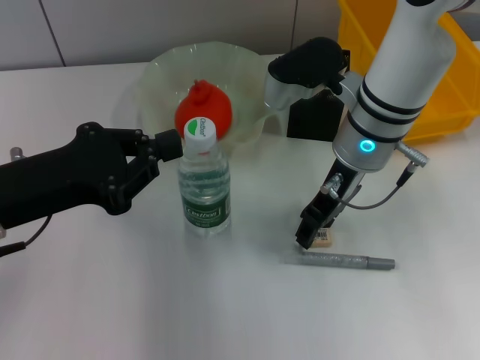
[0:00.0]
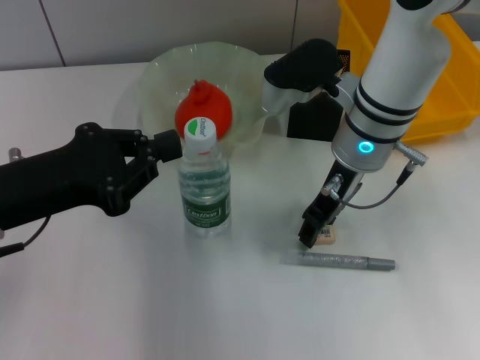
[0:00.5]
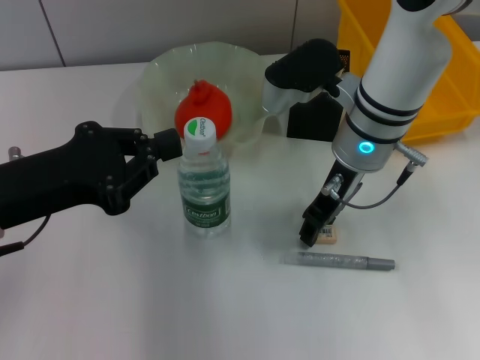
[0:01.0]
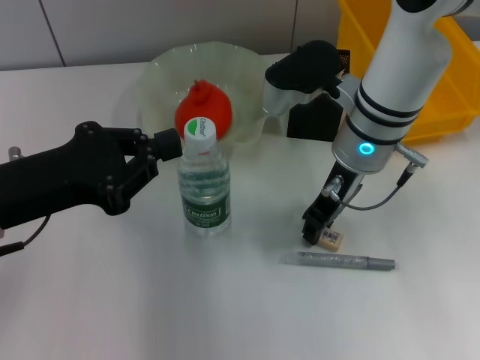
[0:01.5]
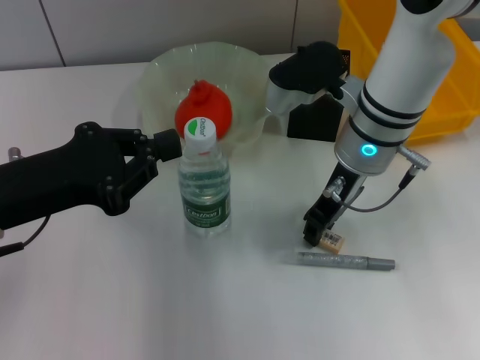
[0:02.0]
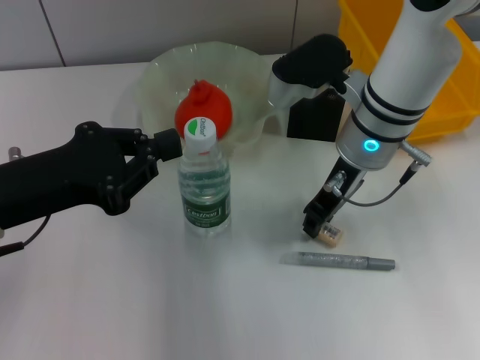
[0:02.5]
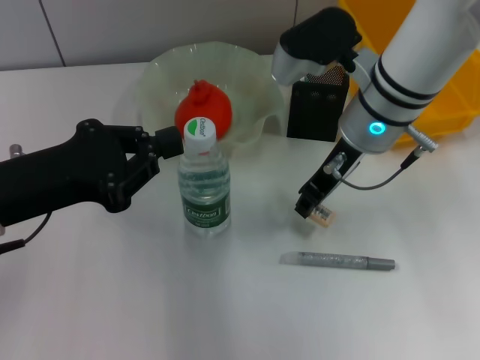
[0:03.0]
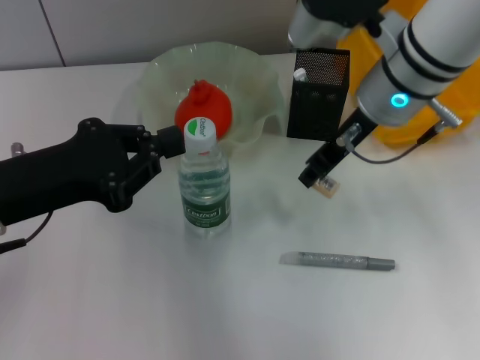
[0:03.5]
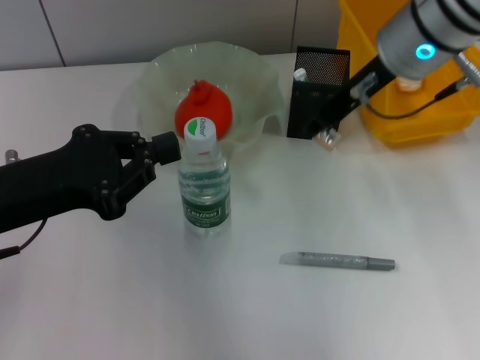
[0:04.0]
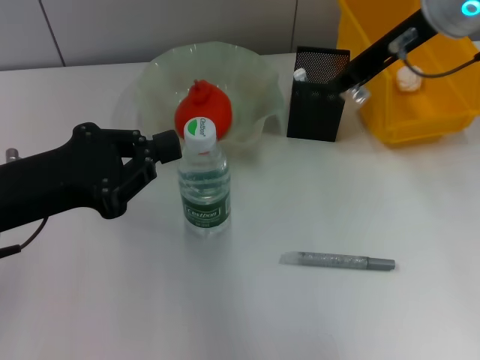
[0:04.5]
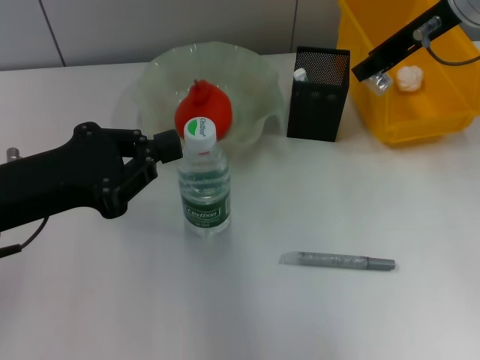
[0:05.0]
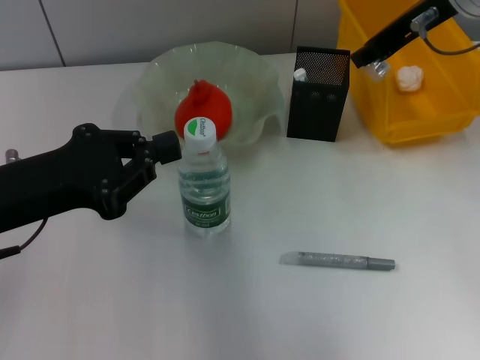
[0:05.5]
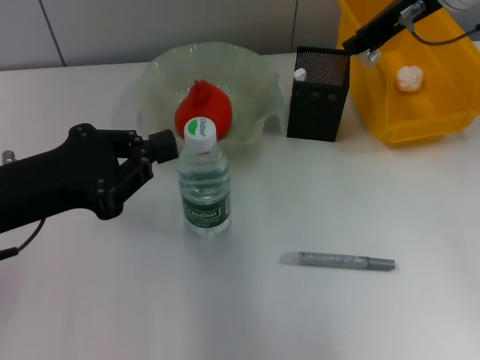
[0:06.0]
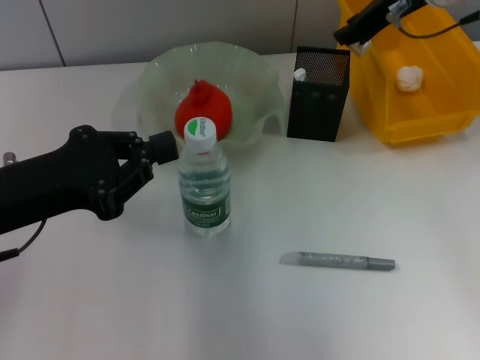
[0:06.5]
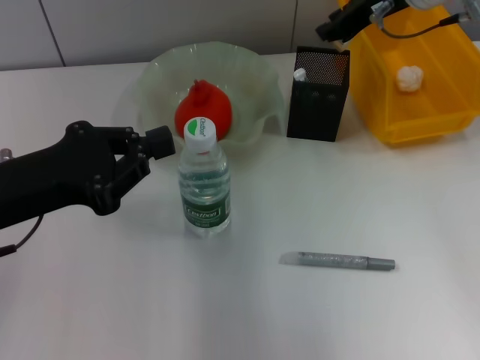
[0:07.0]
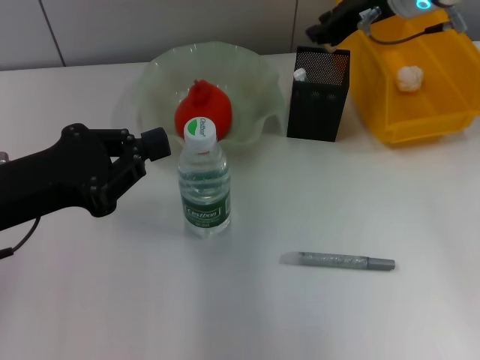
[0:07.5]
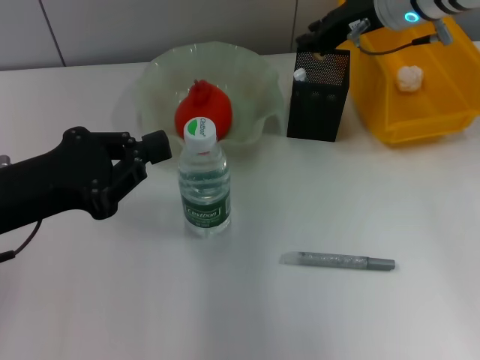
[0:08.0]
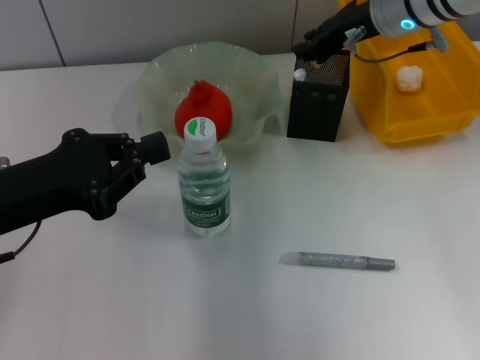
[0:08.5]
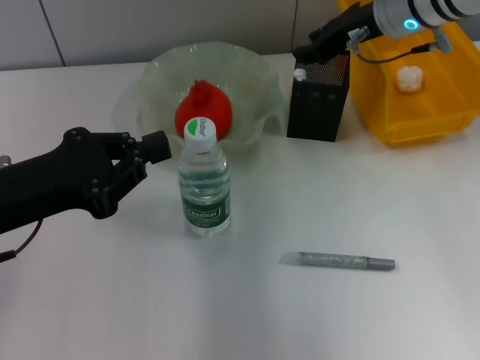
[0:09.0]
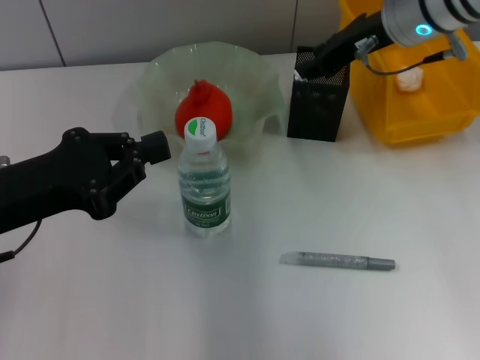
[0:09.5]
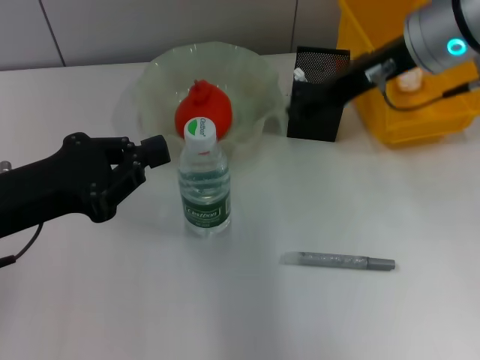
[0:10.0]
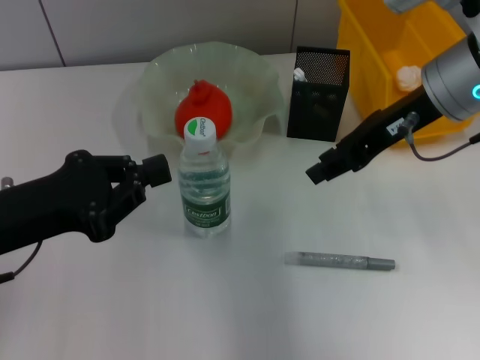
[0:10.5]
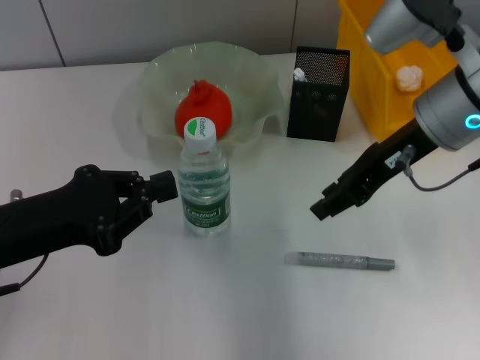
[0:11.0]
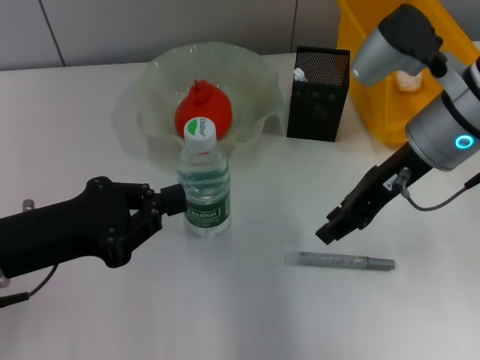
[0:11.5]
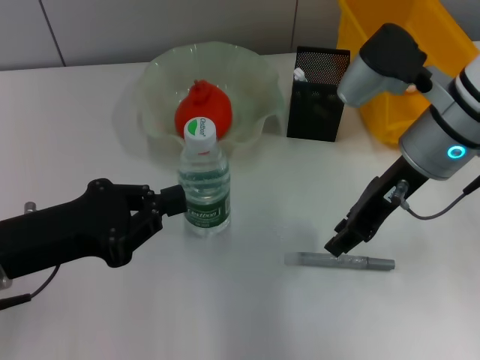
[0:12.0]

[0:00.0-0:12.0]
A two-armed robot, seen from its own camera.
Step, 0:01.5 to 0:09.0: Put the eraser into the pen holder with the right hand.
0:00.0 to 0:02.0: Both grippers stay put.
0:02.0 to 0:04.0: The right gripper goes approximately 10 cm upward.
0:04.0 to 0:06.0: The right gripper heads to the right, covering some 5 cm.
0:06.0 to 0:08.0: The right gripper shifts some 5 cm downward.
0:08.0 to 0:10.0: The right gripper moves backward, some 10 cm.
0:10.0 to 0:12.0: The right gripper shifts about 5 cm downward.

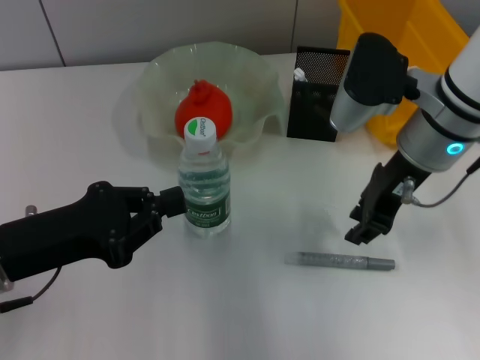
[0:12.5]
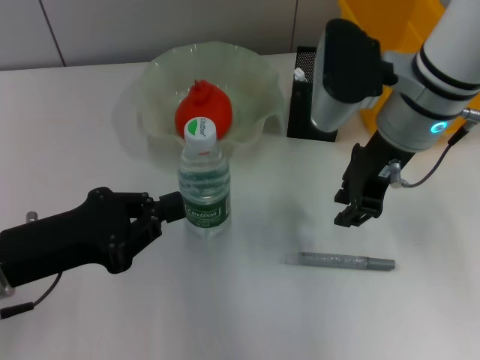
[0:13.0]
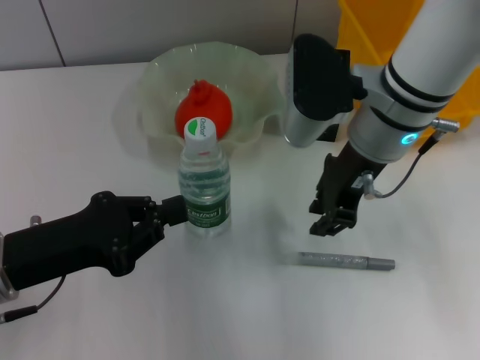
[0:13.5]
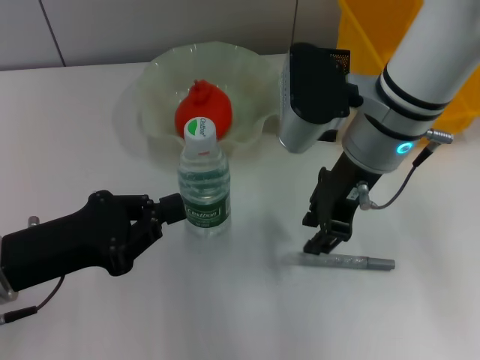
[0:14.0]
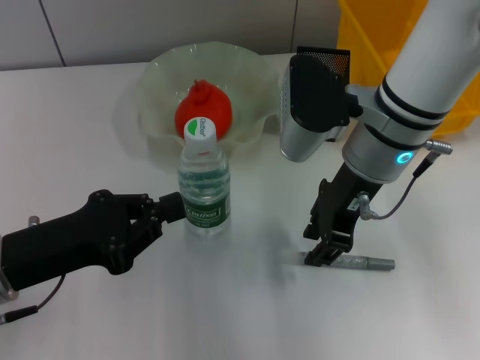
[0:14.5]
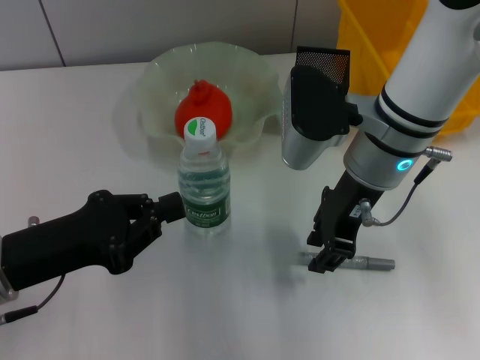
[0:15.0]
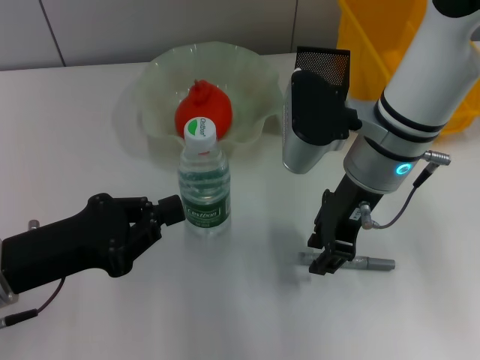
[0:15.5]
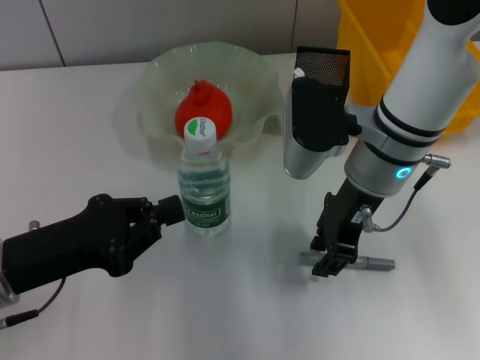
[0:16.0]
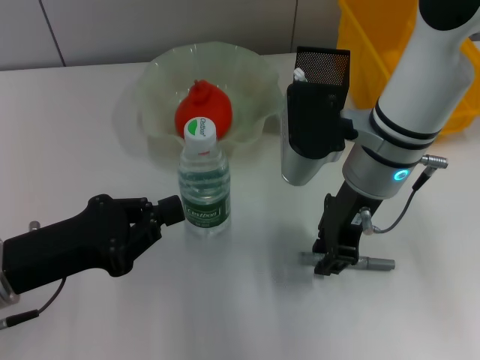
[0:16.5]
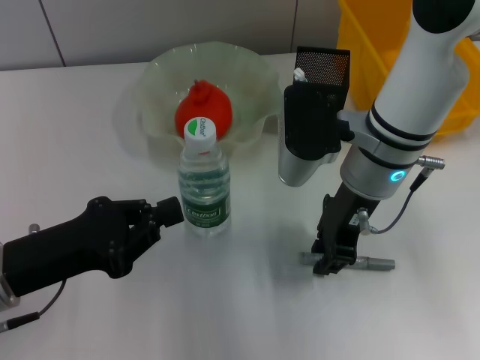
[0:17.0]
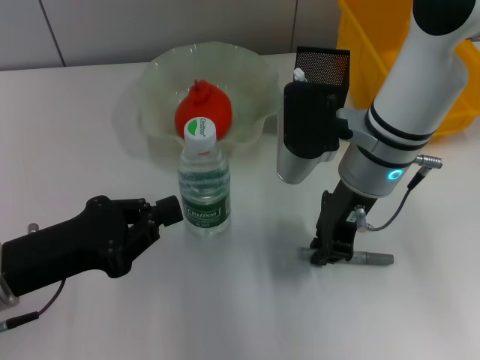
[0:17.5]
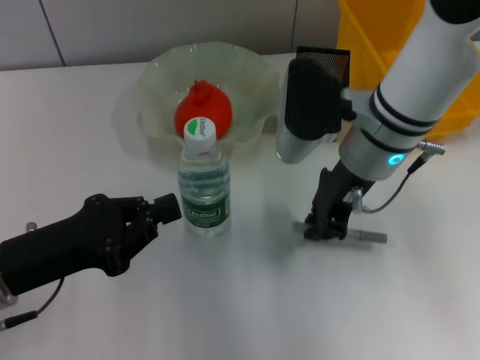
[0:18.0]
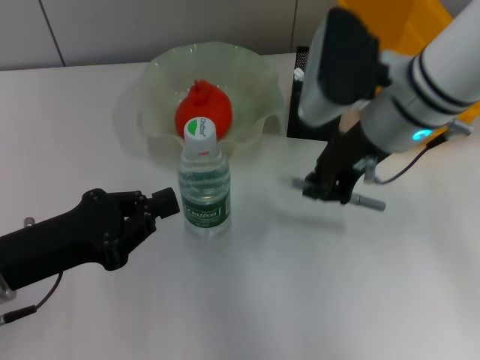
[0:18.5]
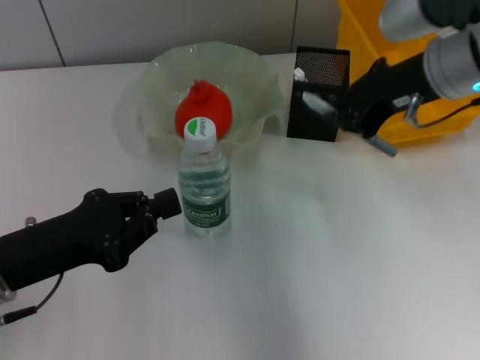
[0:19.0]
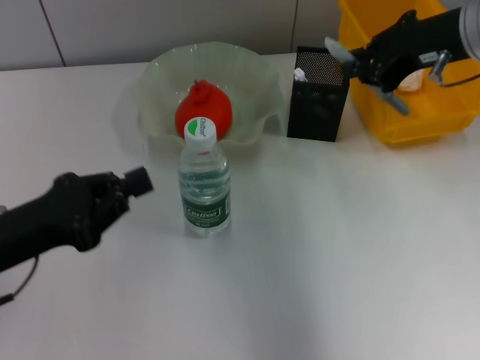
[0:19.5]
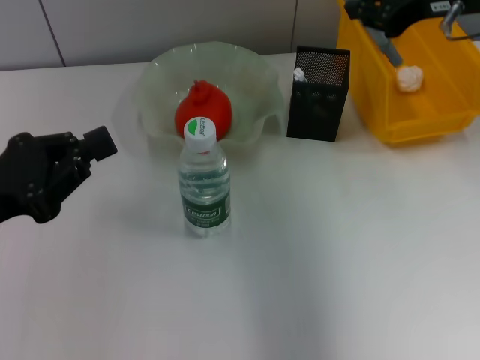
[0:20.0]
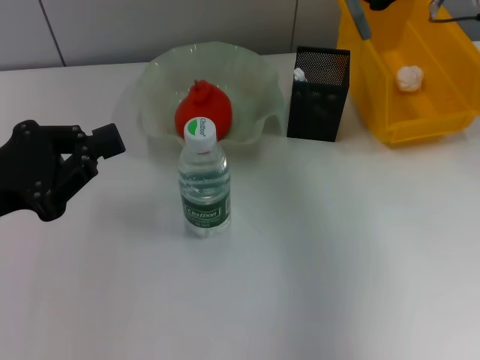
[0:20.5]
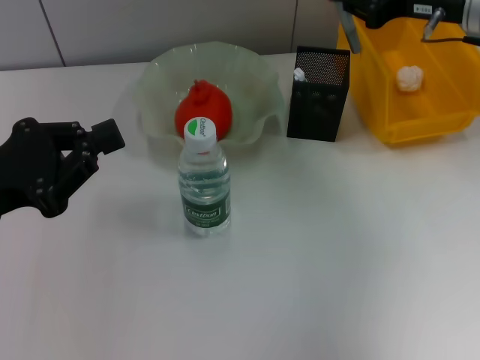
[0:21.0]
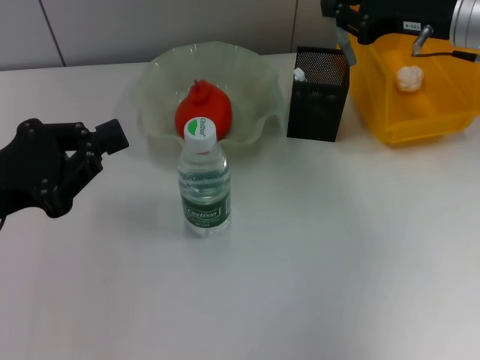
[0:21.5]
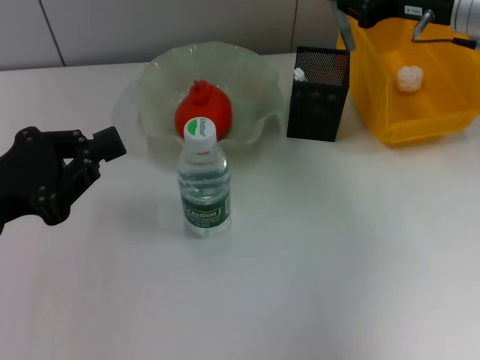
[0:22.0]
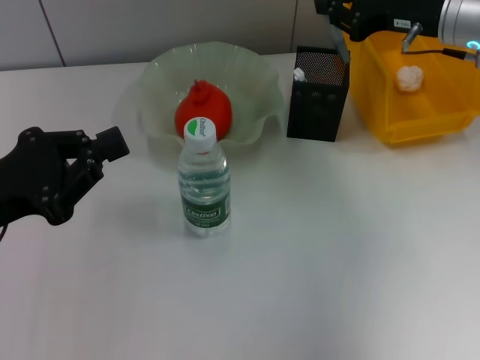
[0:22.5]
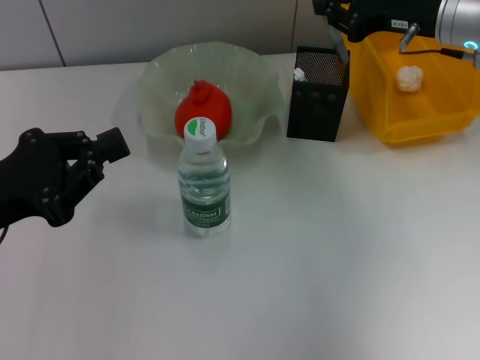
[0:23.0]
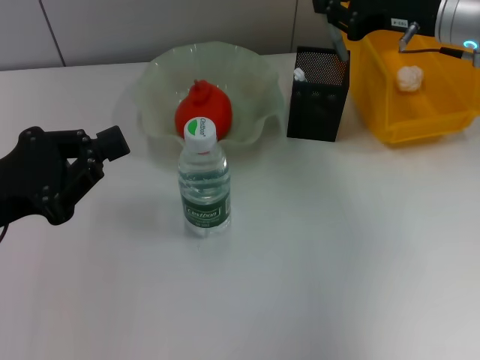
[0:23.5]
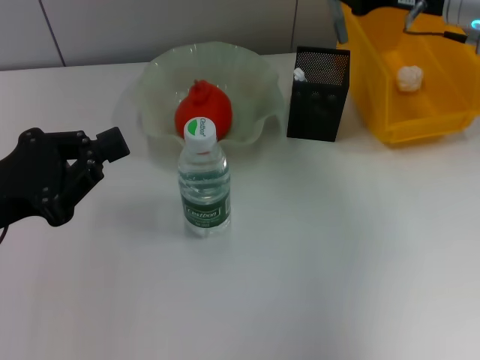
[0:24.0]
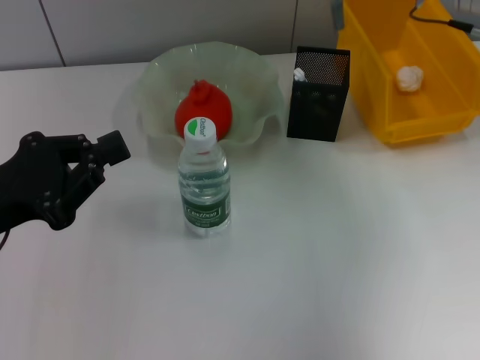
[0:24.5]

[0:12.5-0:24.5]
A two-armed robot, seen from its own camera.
Step, 0:12.5 to 0:17.0: Grab the gray glue with the right hand.
0:12.5 to 0:16.5: The grippers move only a little.
0:16.5 to 0:18.5: The right gripper moves approximately 5 cm, and closes up.
0:18.5 to 0:20.5: The left gripper changes place by approximately 5 cm. The right gripper is displaced to the right and forward by about 10 cm.
0:20.5 to 0:22.5: The right gripper goes roughly 5 cm downward.
0:22.5 to 0:24.5: The grippers make only small movements.

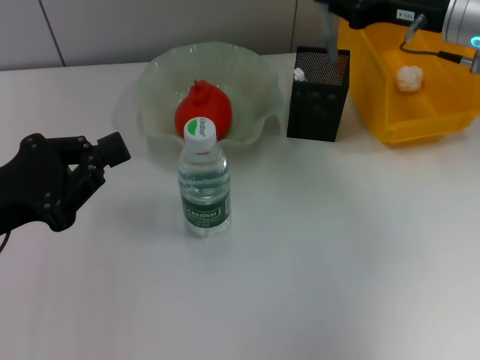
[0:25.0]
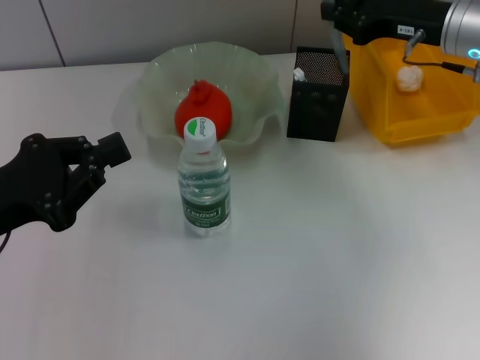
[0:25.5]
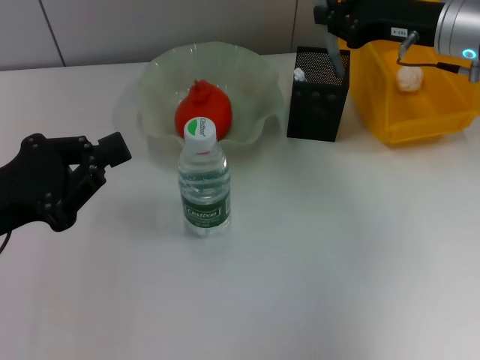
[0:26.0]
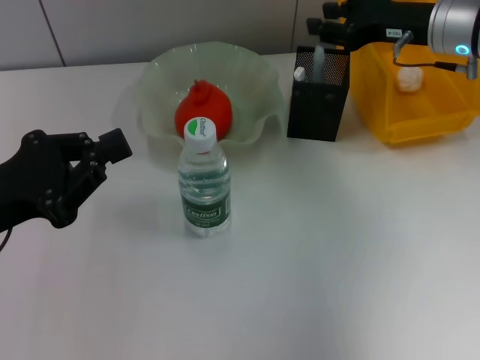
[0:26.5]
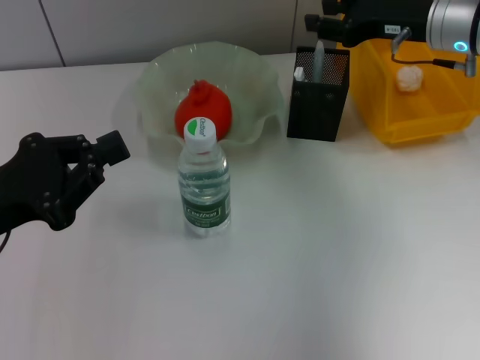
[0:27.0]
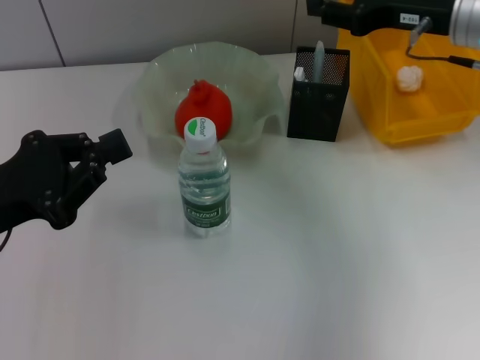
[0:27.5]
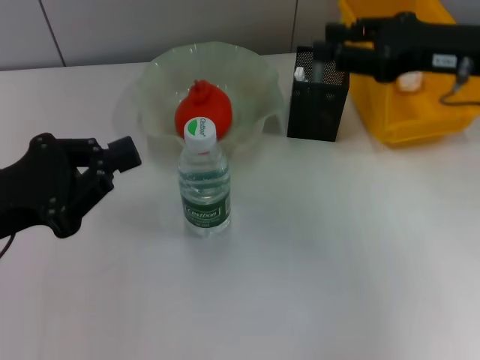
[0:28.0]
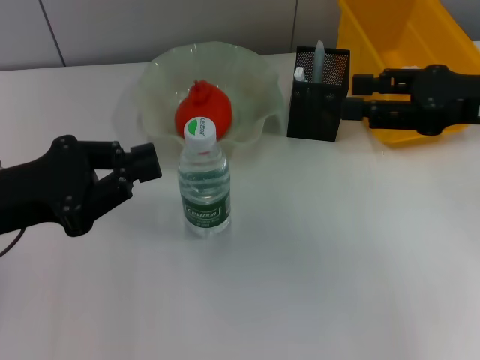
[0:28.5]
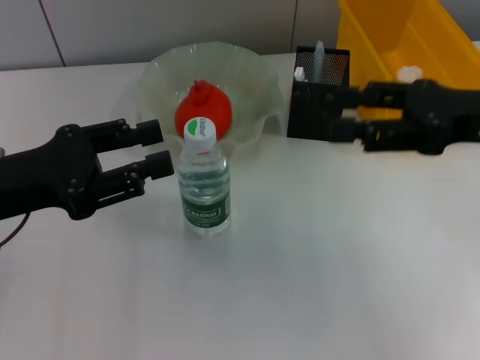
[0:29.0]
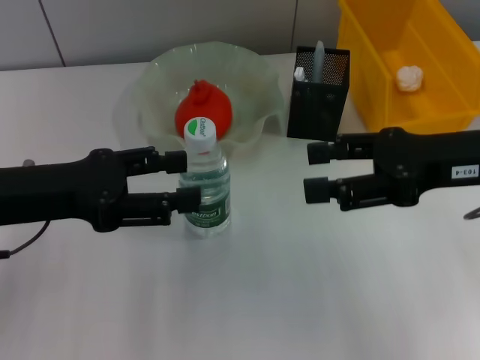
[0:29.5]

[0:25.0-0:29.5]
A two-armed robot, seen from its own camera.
0:25.0 to 0:27.0: The grippers move only a little.
0:27.0 to 0:29.5: The left gripper shifts by some 5 cm, and opens up. The right gripper heads backward, covering approximately 15 cm, and opens.
